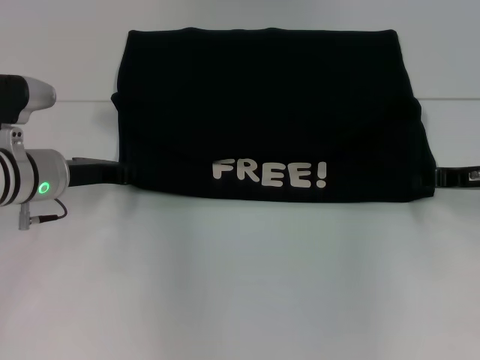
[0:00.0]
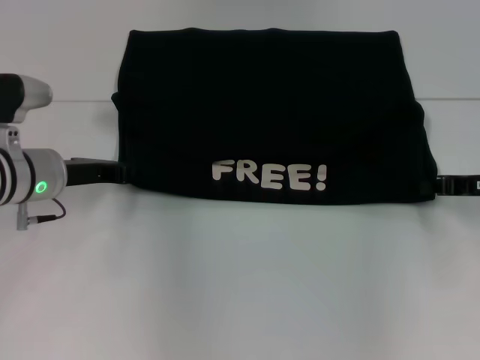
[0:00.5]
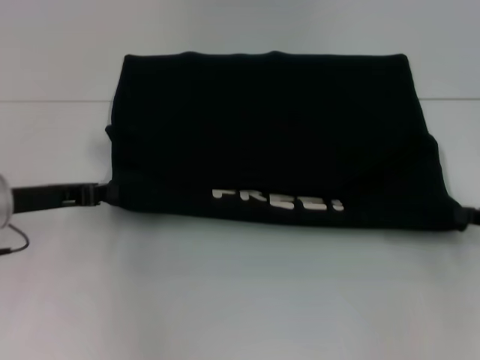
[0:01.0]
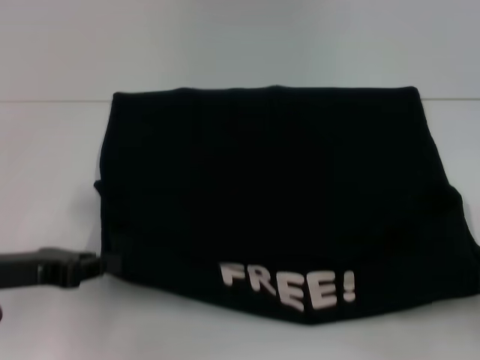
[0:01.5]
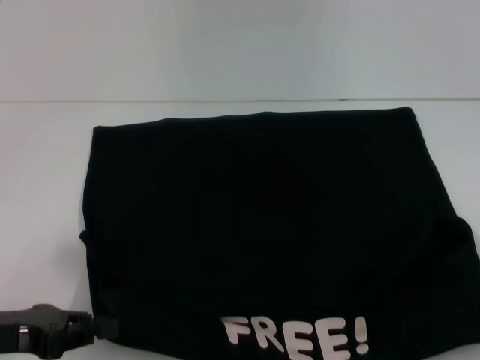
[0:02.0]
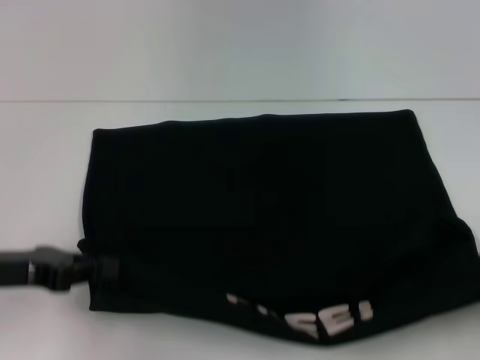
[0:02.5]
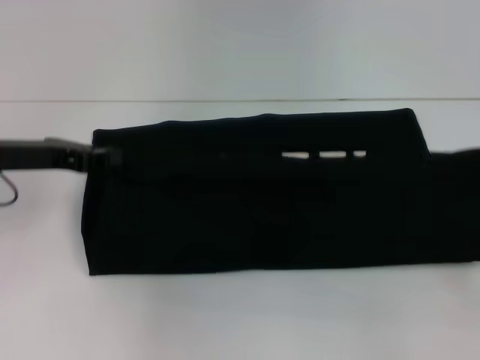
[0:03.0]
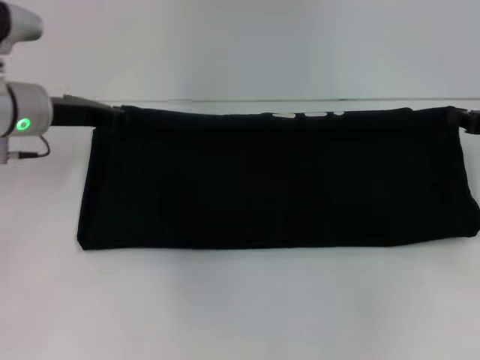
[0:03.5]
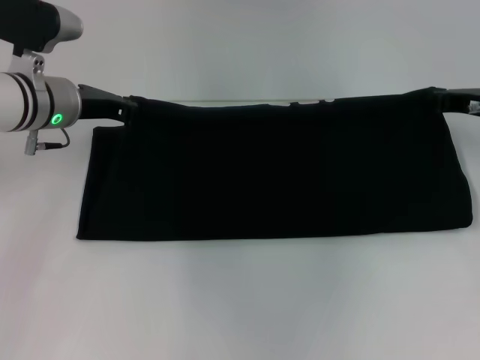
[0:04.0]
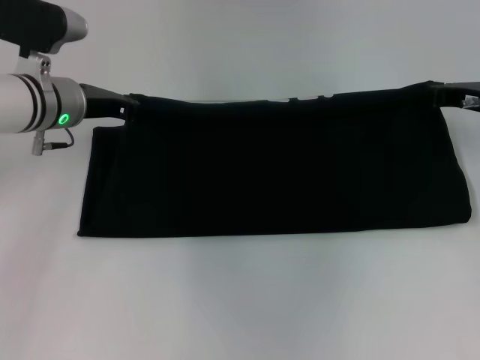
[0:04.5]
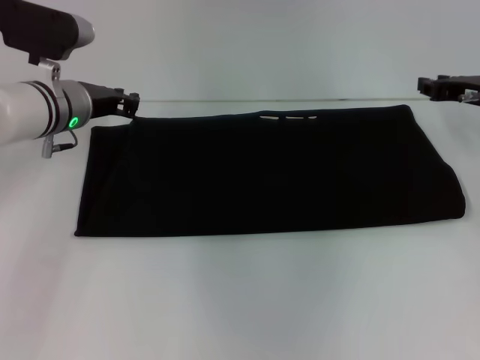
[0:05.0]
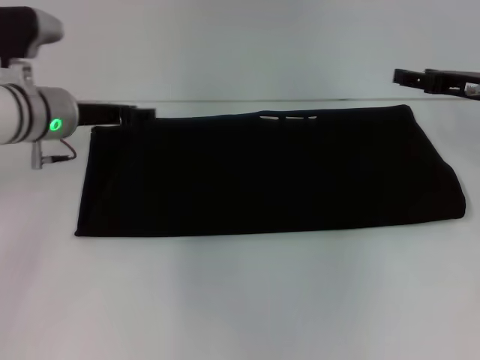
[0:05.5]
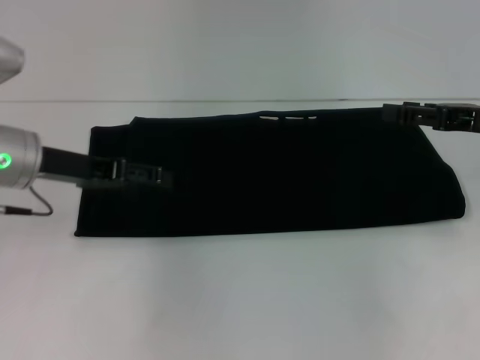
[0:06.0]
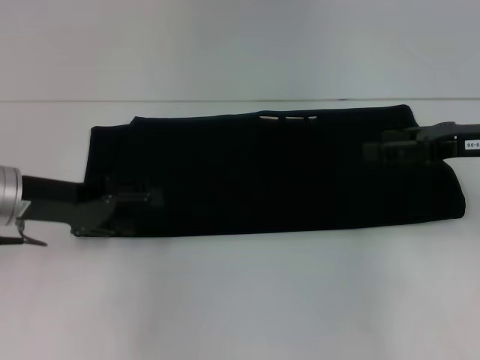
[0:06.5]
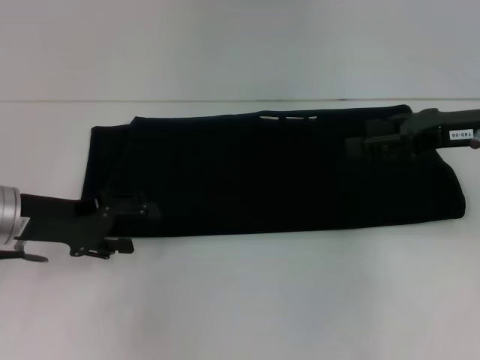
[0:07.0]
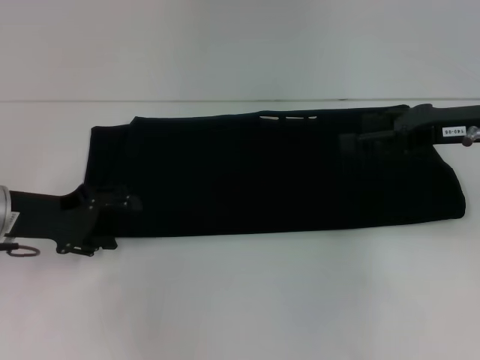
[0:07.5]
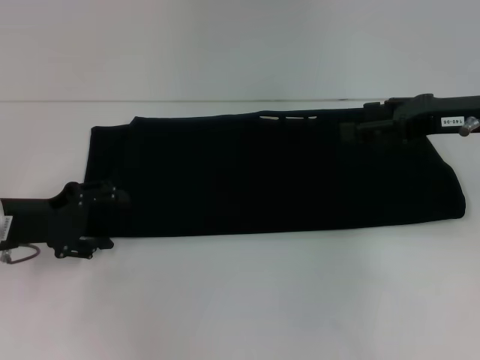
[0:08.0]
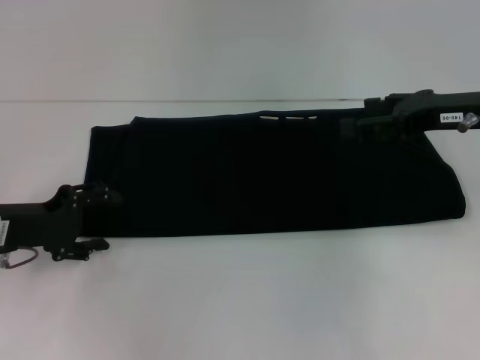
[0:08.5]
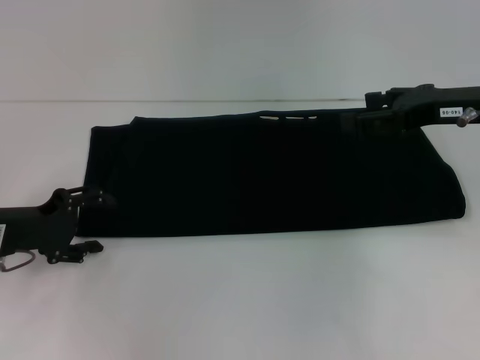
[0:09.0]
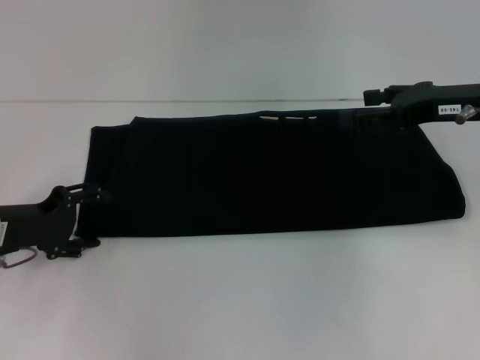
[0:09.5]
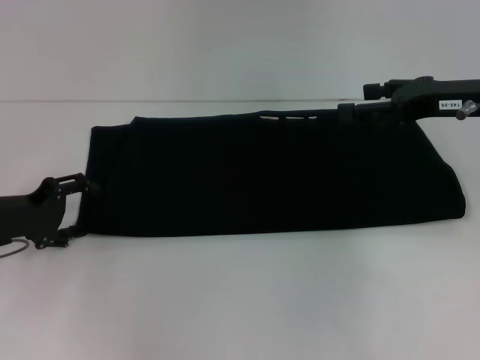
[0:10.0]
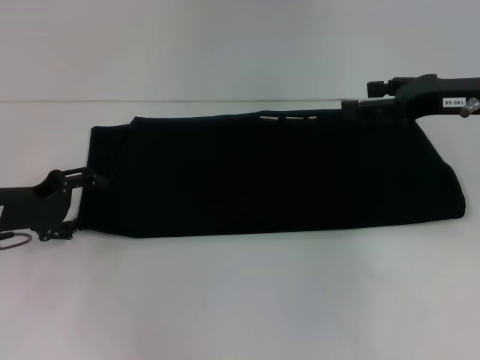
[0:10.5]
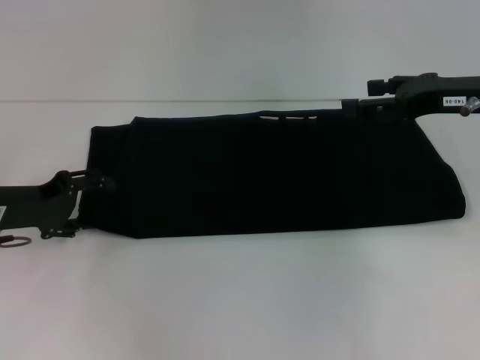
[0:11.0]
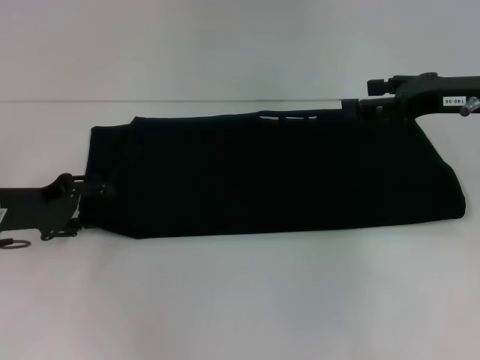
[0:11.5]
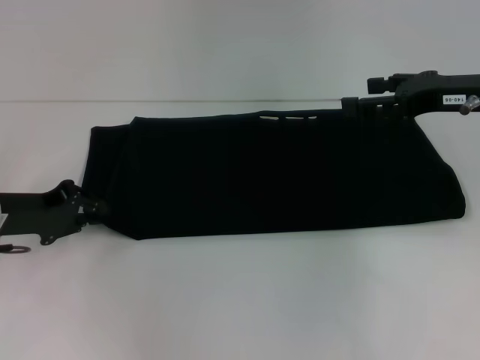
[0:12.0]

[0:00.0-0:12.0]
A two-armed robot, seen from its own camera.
Step, 0:02.0 to 0:05.0: Fold the clothes with your right hand.
0:00.0 to 0:02.0: The right gripper moves backward and to the right, about 20 cm, and closes up. Meanwhile the left gripper shifts some 15 cm backward.
0:02.0 to 0:04.0: The left gripper shifts roughly 25 cm forward, while the right gripper travels forward and to the left by approximately 25 cm.
0:04.0 to 0:06.0: The grippers both shift backward by some 5 cm. The left gripper opens up; the right gripper opens.
0:06.0 to 0:08.0: The left gripper goes approximately 5 cm downward.
0:08.0 to 0:10.0: The grippers stay close to where they were, moving slightly.
0:10.0 to 0:12.0: The left gripper closes up.

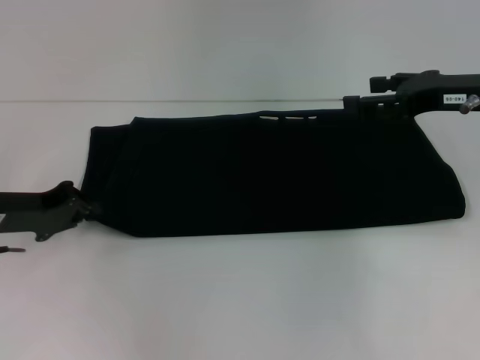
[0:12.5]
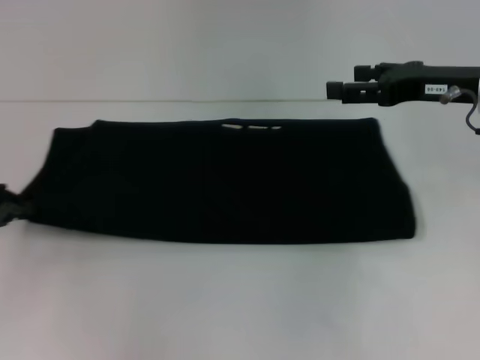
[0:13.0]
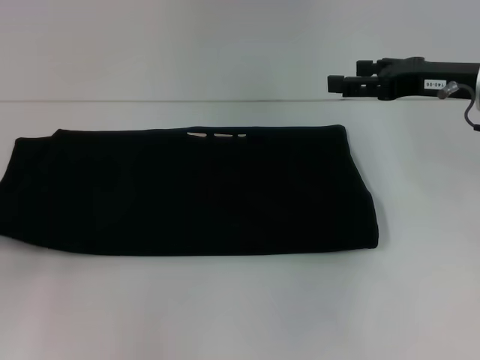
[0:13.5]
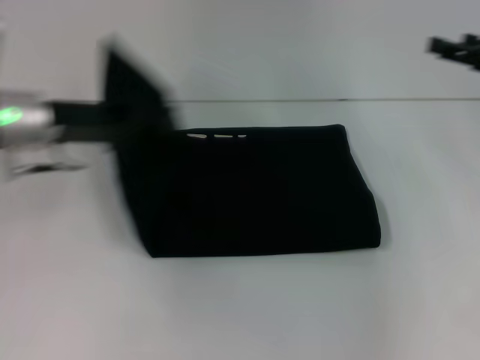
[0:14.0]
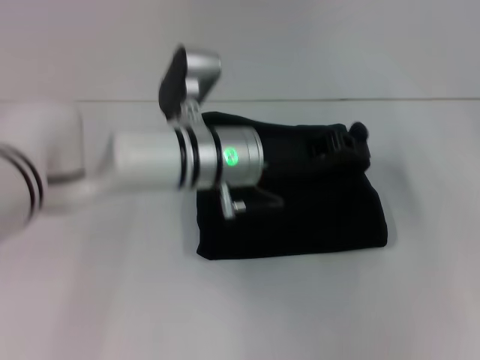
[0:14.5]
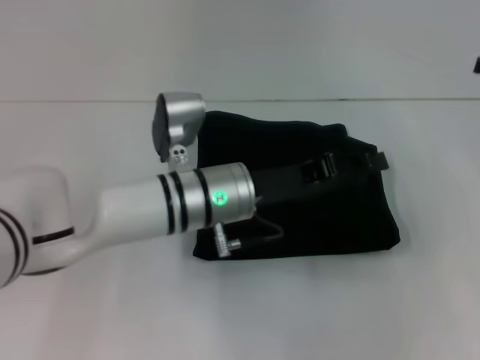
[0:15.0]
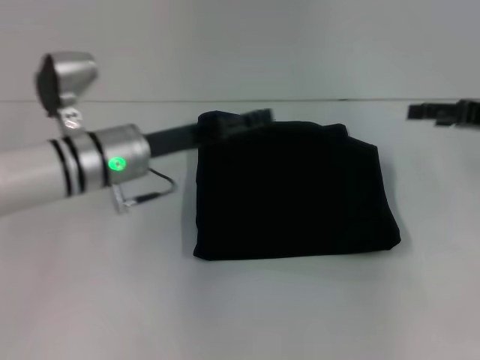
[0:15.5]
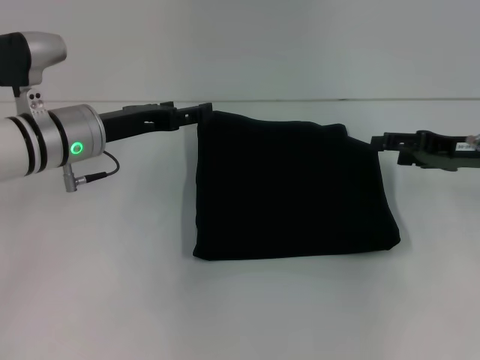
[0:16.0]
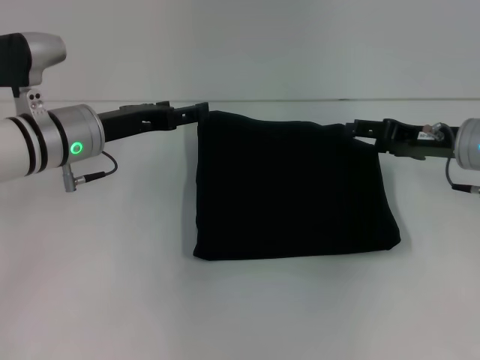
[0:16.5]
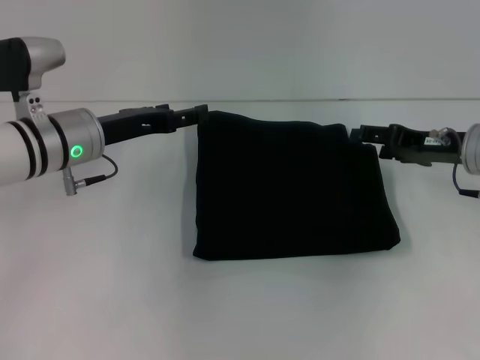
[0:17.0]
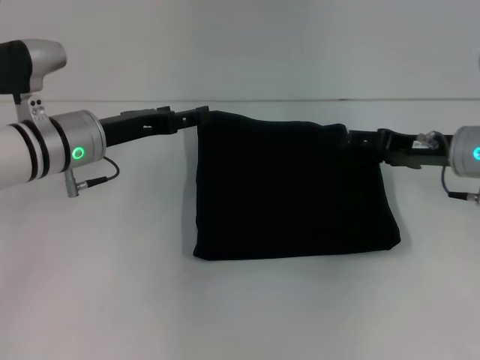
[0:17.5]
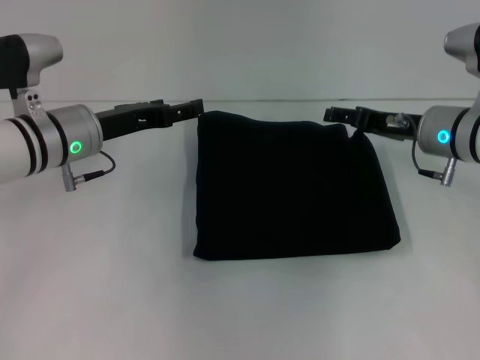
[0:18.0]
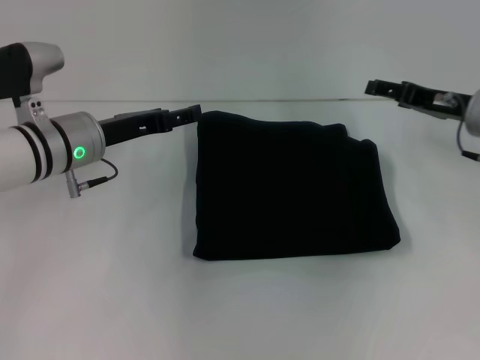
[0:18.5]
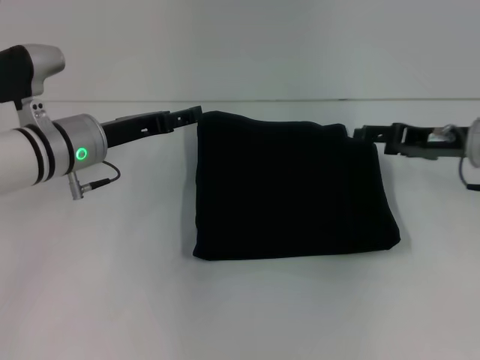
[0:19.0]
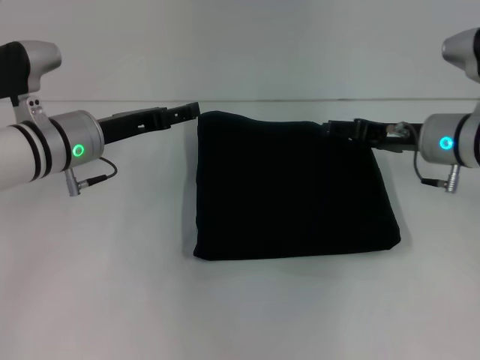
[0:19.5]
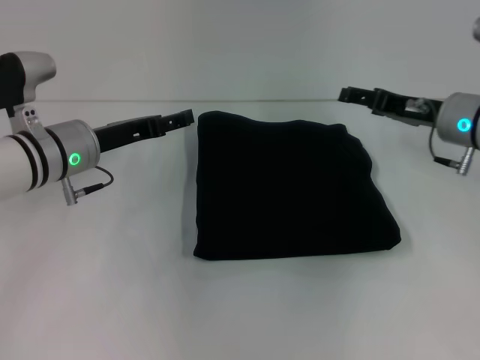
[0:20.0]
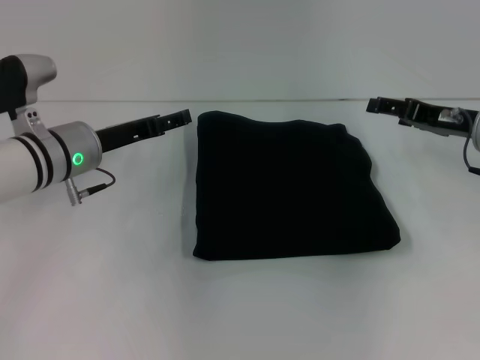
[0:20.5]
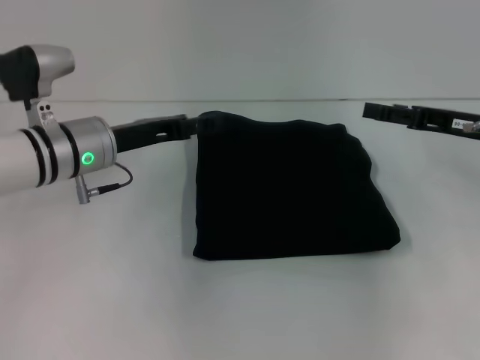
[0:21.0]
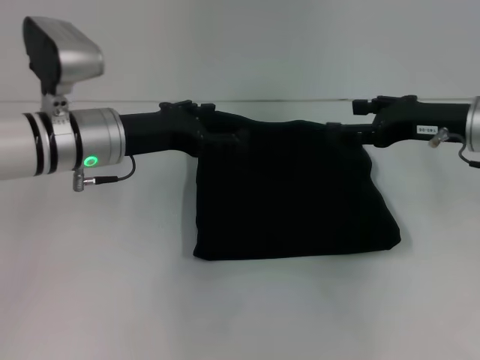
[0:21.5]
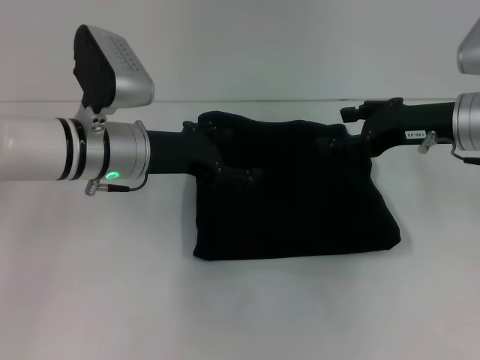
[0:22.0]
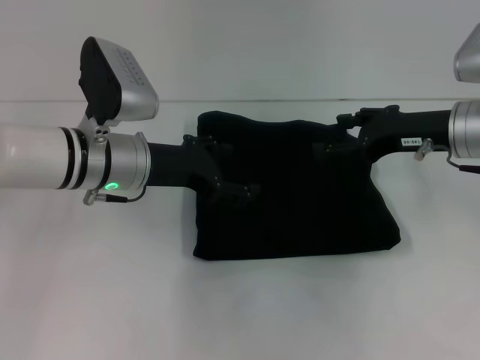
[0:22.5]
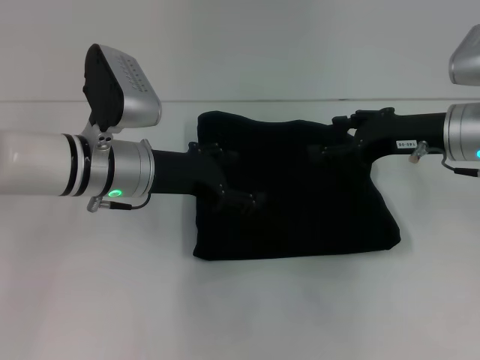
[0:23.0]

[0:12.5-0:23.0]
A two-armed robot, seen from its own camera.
Step, 0:12.5 to 0:14.5: Fold the clothes with your left hand.
0:12.5 to 0:14.5: The right gripper heads to the right, covering approximately 10 cm. The left gripper moves to the right, approximately 25 cm.
0:14.5 to 0:16.5: The left gripper travels to the left by about 15 cm, and opens its fingers, while the right gripper is displaced to the left and downward by some 15 cm.
0:16.5 to 0:19.0: The grippers move only a little.
0:19.0 to 0:21.0: The grippers move only a little.
0:21.0 to 0:23.0: The right gripper travels to the left by some 5 cm.

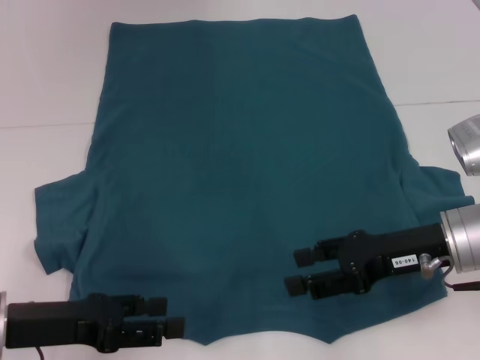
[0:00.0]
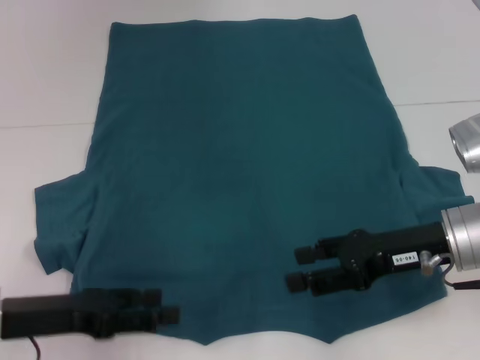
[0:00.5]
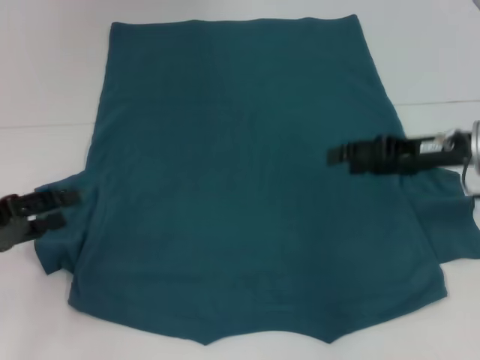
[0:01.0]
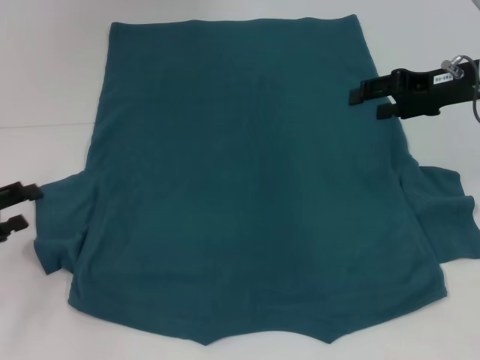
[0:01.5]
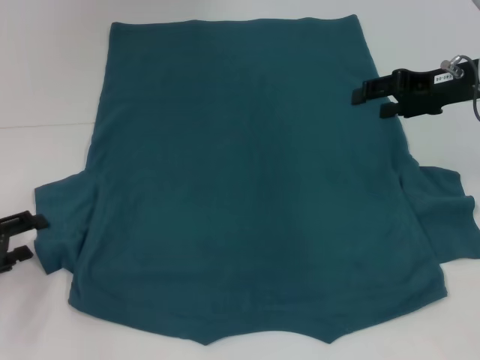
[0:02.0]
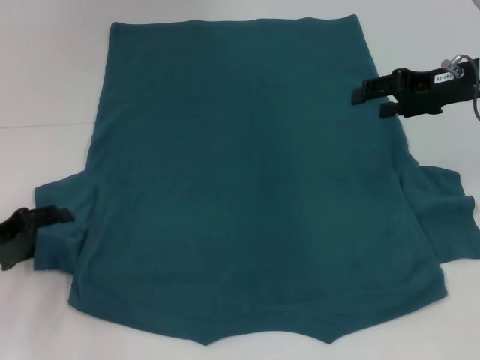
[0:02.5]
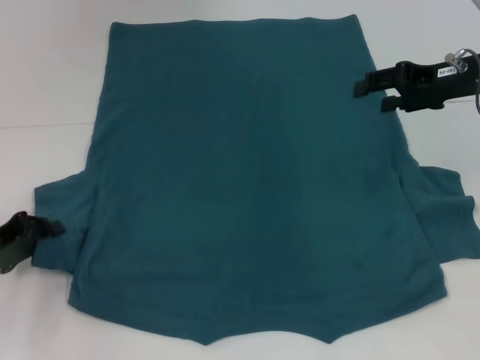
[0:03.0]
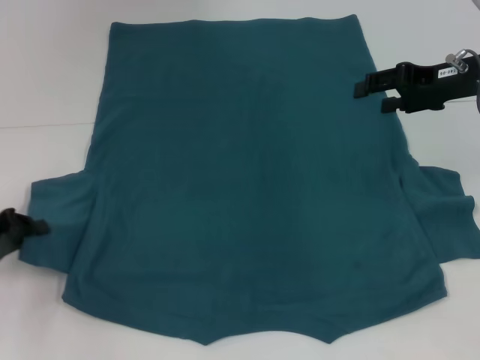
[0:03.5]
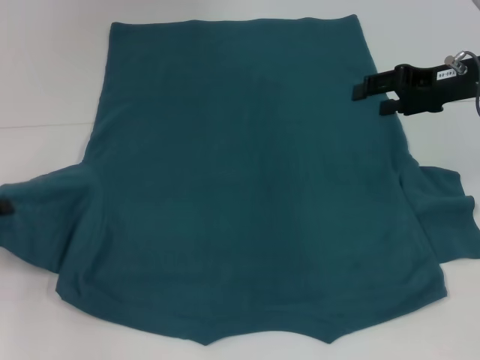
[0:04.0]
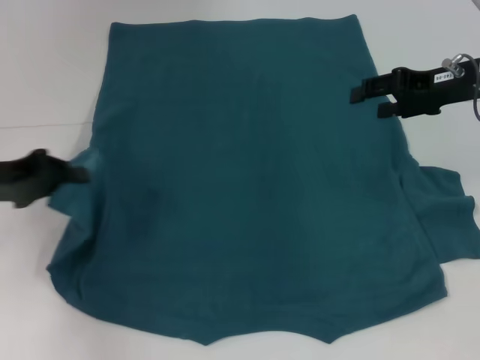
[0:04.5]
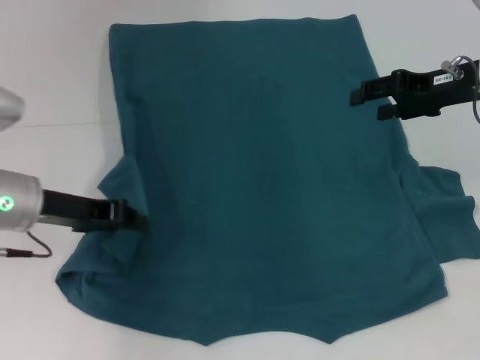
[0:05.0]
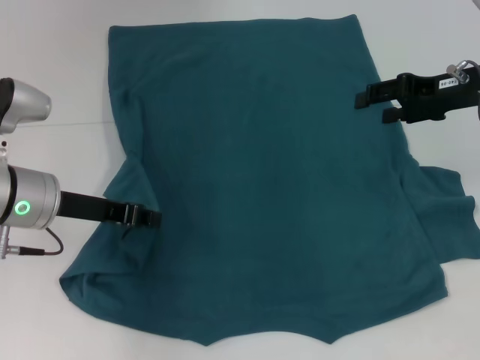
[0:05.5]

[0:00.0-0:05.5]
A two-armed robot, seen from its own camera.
0:00.0 to 0:02.0: The right gripper is displaced forward, upward and to the right by approximately 15 cm; the left gripper goes roughly 10 cm to the left.
0:02.0 to 0:03.5: The left gripper closes its fingers.
0:03.5 to 0:05.5: The left gripper is displaced to the right and upward by roughly 15 cm.
